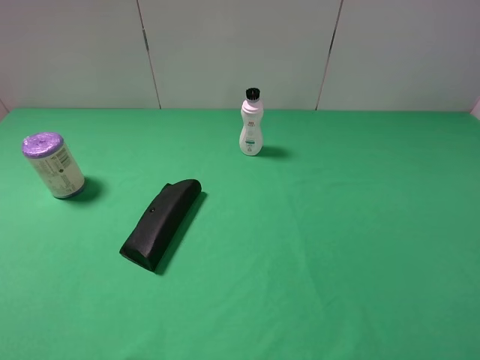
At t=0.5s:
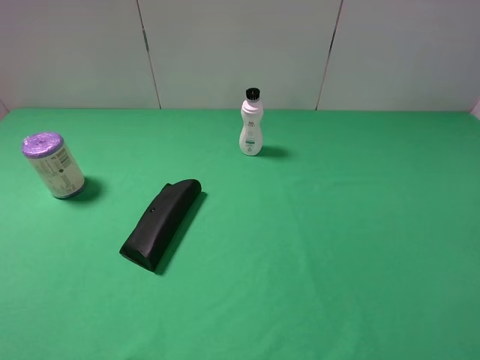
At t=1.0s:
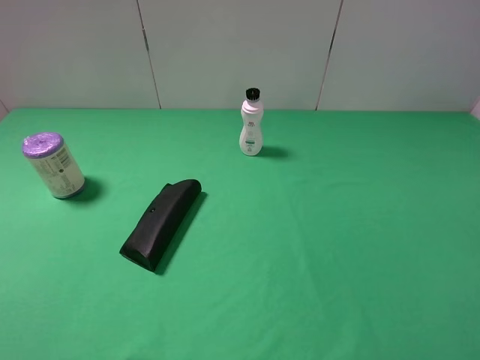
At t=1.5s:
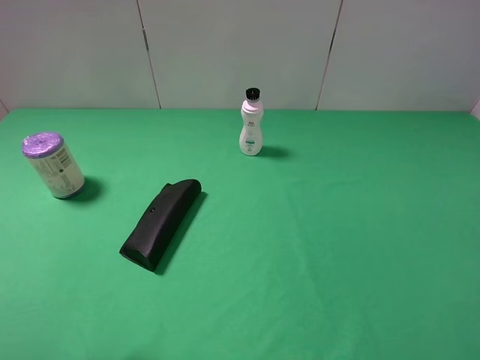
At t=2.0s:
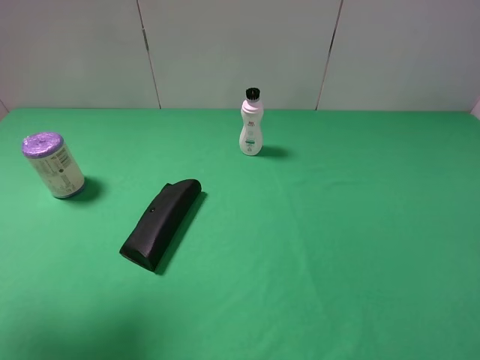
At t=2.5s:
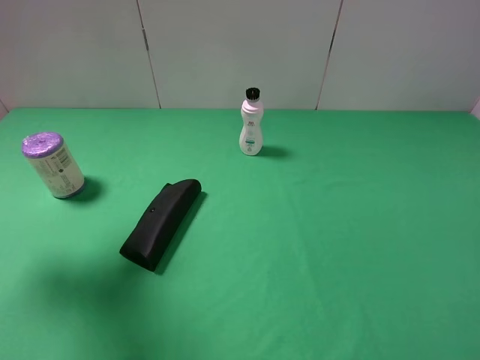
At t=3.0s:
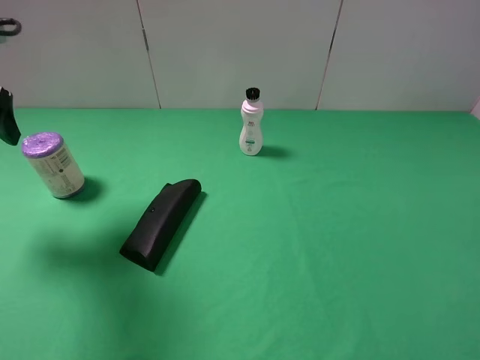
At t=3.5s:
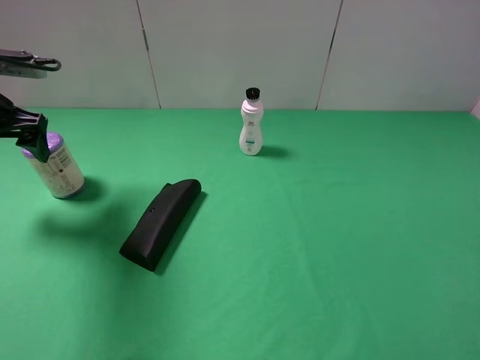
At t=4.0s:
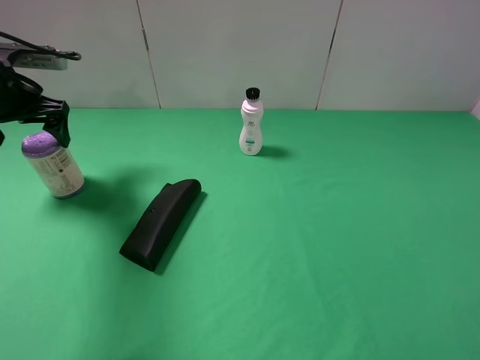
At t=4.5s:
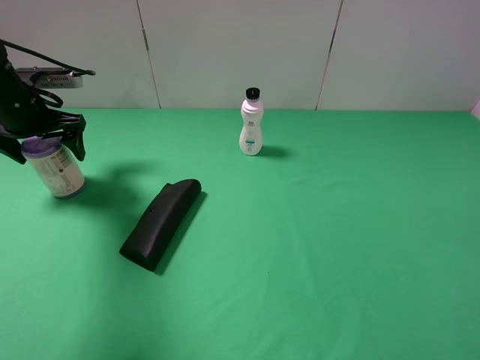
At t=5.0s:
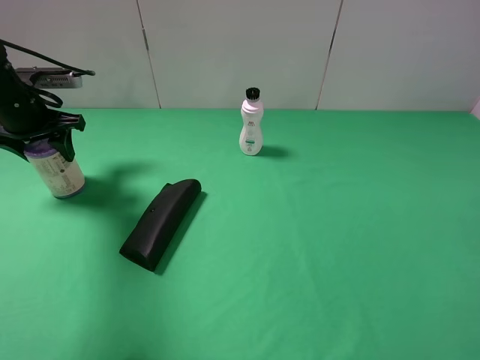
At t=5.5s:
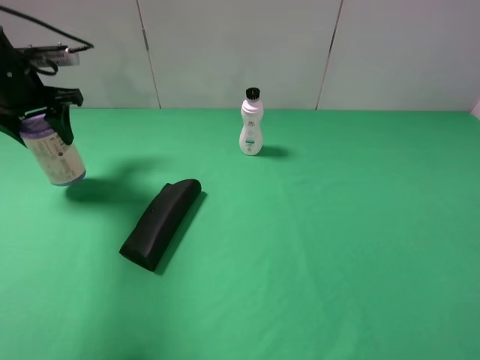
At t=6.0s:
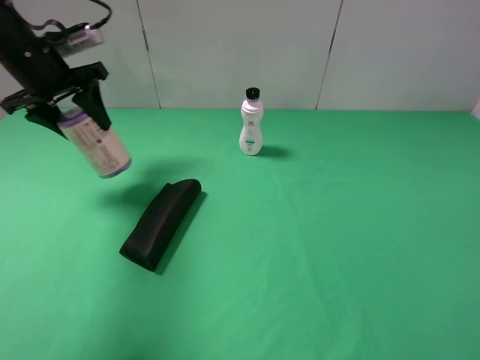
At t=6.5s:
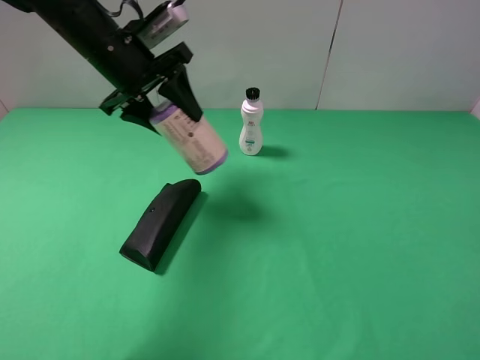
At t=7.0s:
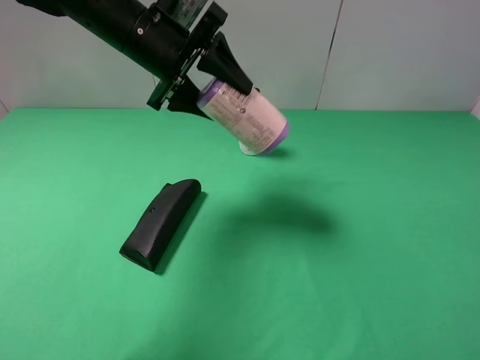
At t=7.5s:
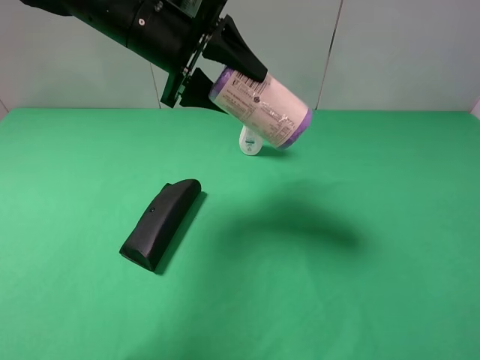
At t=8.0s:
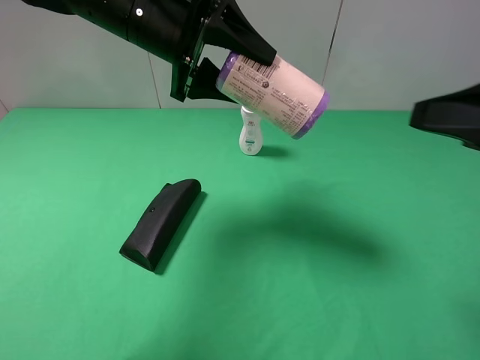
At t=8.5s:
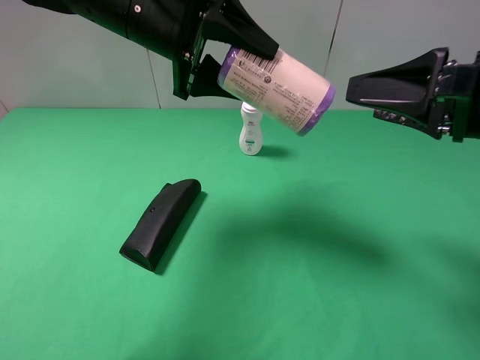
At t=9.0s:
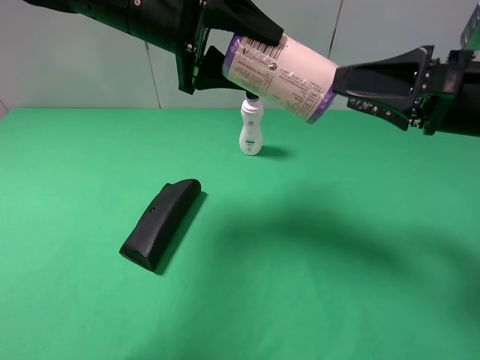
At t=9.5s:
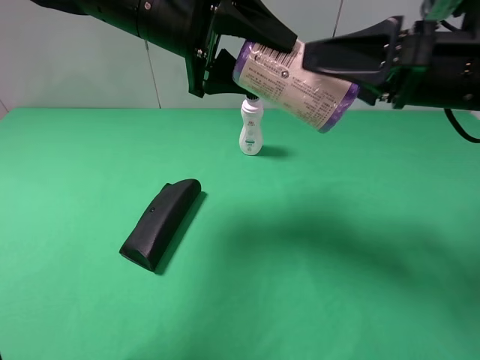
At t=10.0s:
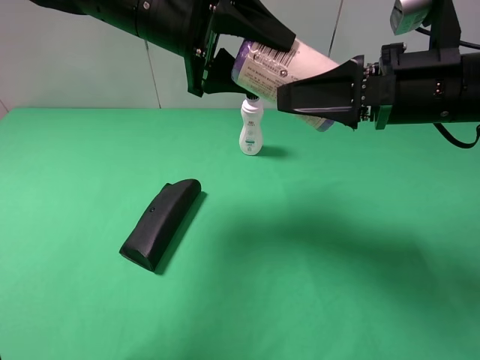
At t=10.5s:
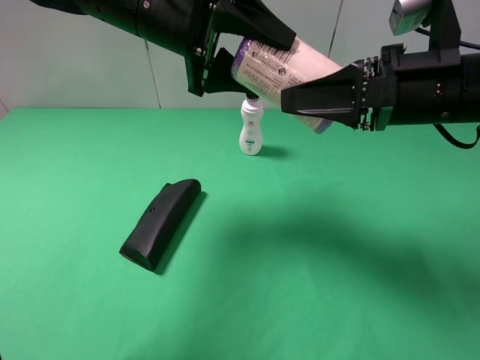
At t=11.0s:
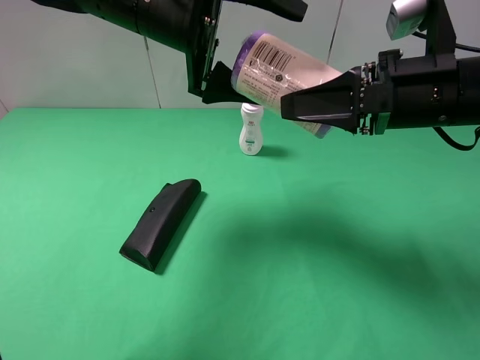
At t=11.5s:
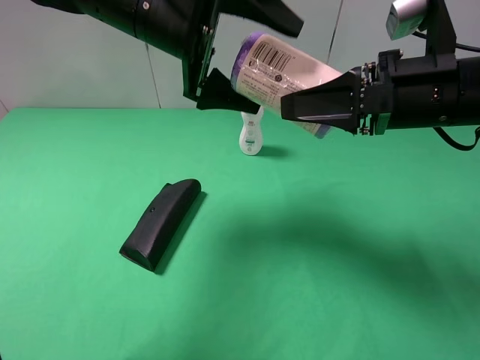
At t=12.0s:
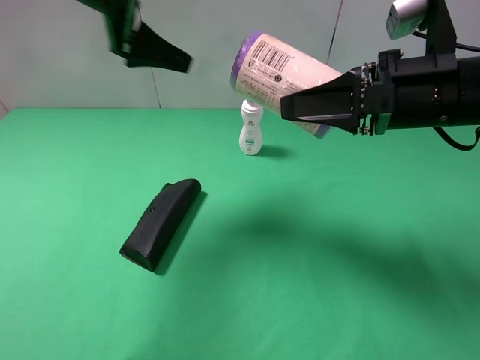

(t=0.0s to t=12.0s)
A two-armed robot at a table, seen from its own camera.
Task of the whole recording: use the left gripper to pick up the item and transfer it from the left gripper to the right gripper.
Step, t=0.0s - t=4.5s: Use the left gripper to grab the purple garbage bag on the left side of the table.
Step, t=5.0s - t=11.0s: Pass the purple garbage bag to the right gripper.
t=0.0s - t=2.0s: The left gripper moves forward and upward, about 15 cm.
t=2.0s - t=4.0s: The left gripper shifts approximately 25 cm forward and downward.
t=4.0s - t=6.0s: The left gripper goes some 5 cm to the right, and closes up.
t=6.0s - t=8.0s: The right gripper is displaced forward by roughly 15 cm. The left gripper goes about 15 cm to the right.
t=8.0s - t=10.0s: The right gripper heads forward and to the left, covering approximately 10 cm.
t=10.0s - t=12.0s: The left gripper shifts some 10 cm to the left and upward, and opens up; the right gripper closes its fingers.

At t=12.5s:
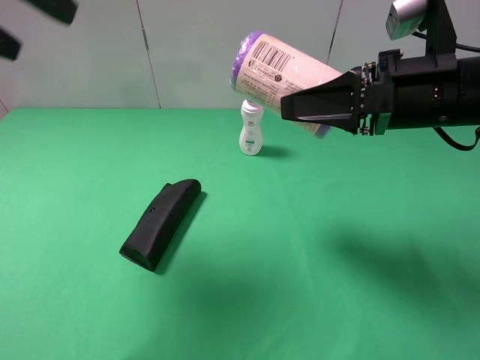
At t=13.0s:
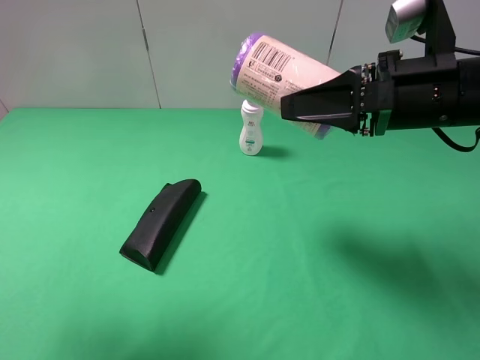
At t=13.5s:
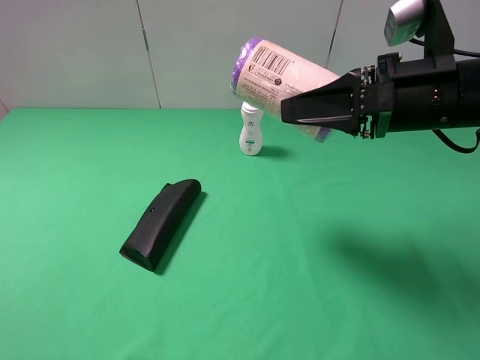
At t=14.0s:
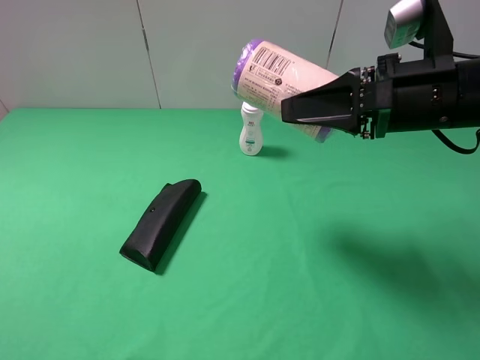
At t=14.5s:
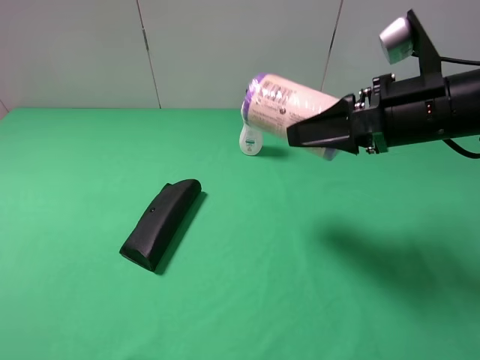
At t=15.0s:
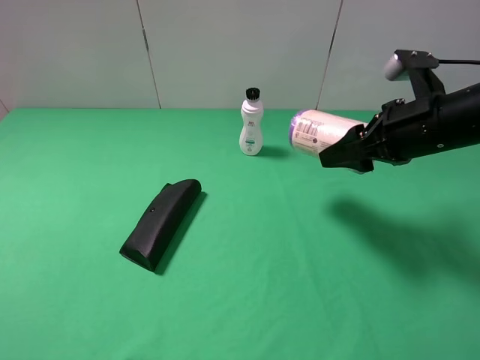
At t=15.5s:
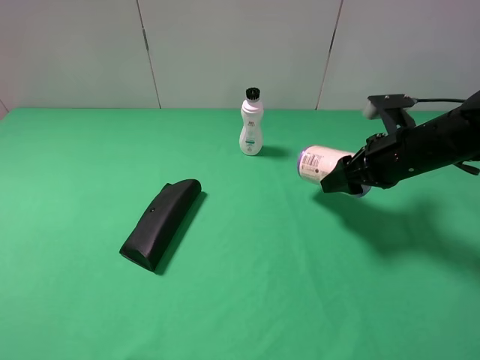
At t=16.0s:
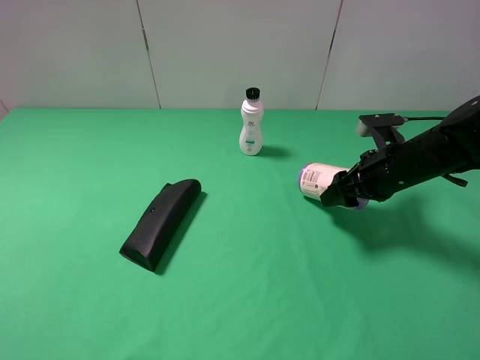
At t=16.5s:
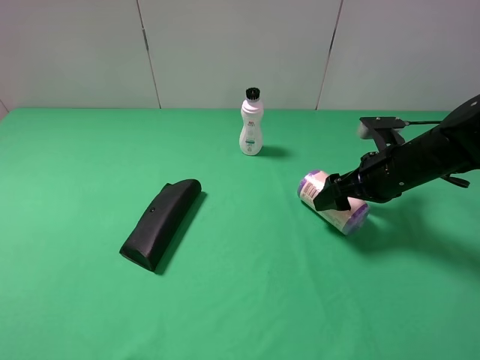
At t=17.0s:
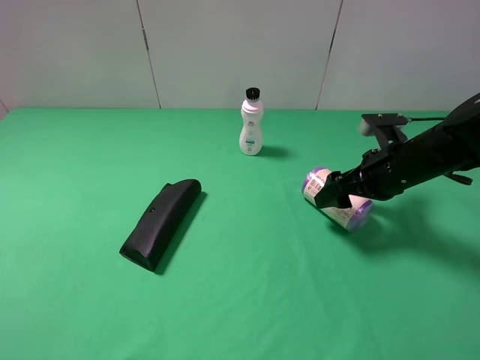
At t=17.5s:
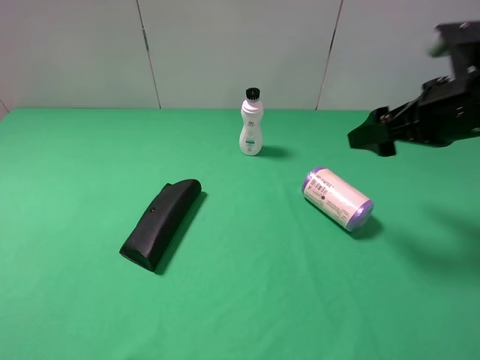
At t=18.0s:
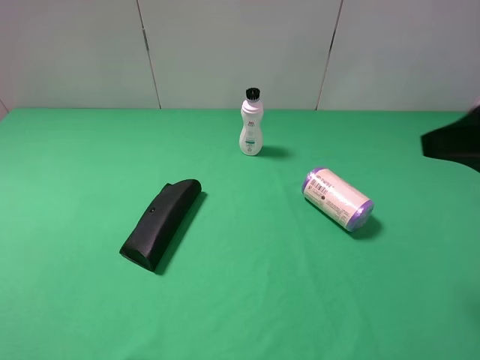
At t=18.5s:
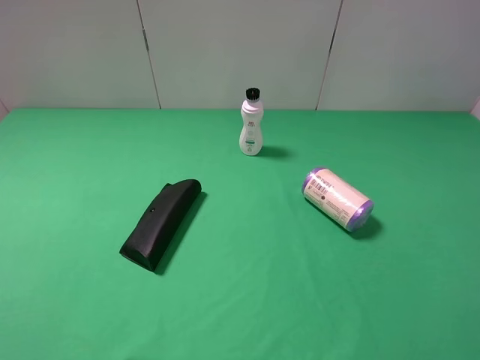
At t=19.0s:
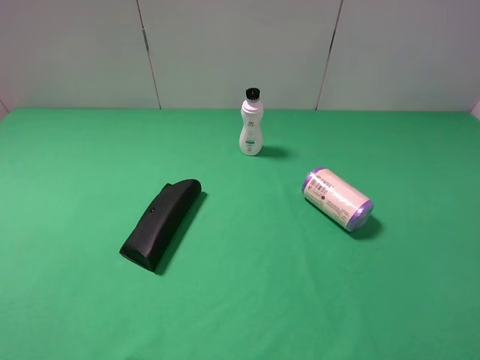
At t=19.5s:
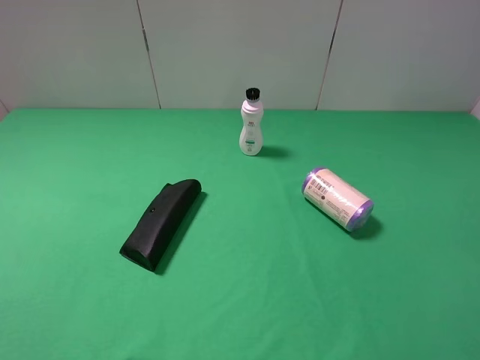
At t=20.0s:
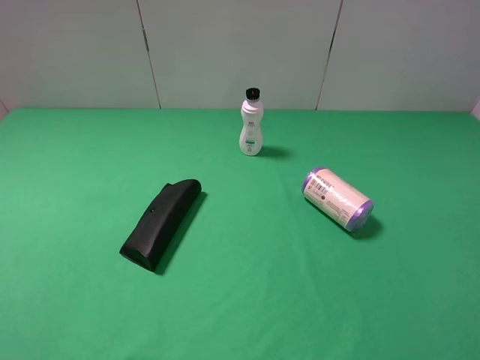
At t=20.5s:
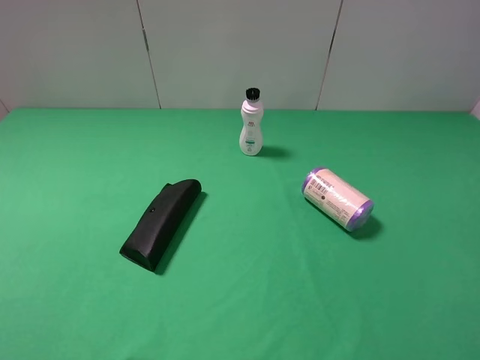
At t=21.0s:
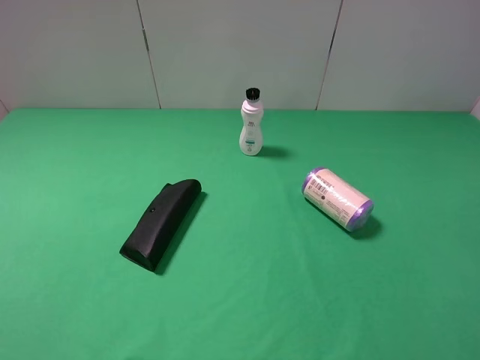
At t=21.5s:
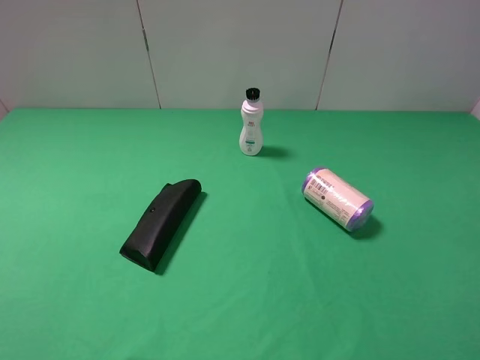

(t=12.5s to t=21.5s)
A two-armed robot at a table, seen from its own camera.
Task of the whole recording: use the left gripper to pick up the item and transfer it from the left gripper to the right gripper.
Step, t=12.5s - t=16.5s: The right gripper places purple garbage bag on the right side of the table.
t=12.5s - t=14.5s: The left gripper travels backward and downward by some 25 cm.
t=14.5s - t=17.0s: The right gripper travels downward by approximately 10 cm, and opens.
t=17.0s - t=19.5s: The right gripper shifts about 30 cm backward and upward.
